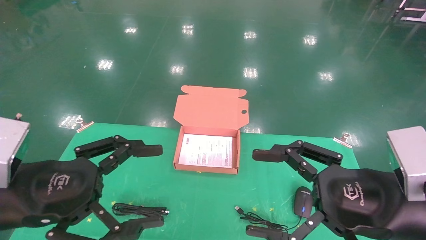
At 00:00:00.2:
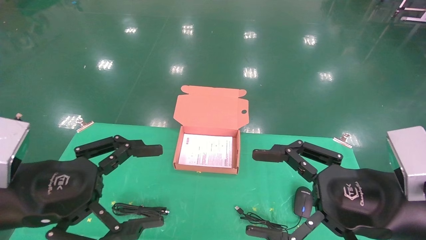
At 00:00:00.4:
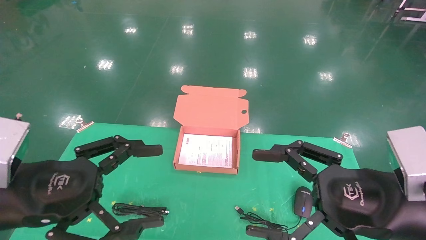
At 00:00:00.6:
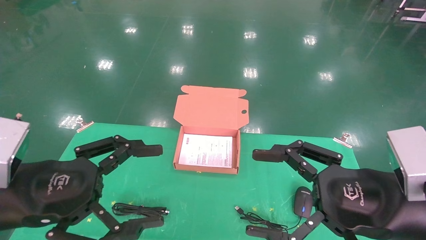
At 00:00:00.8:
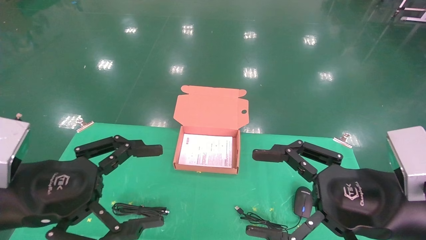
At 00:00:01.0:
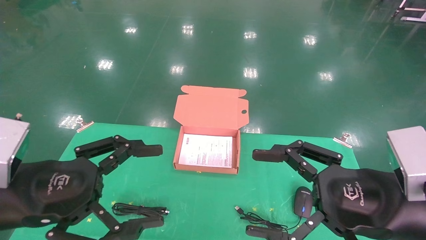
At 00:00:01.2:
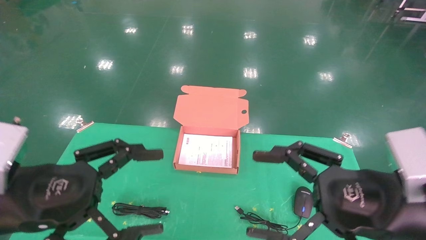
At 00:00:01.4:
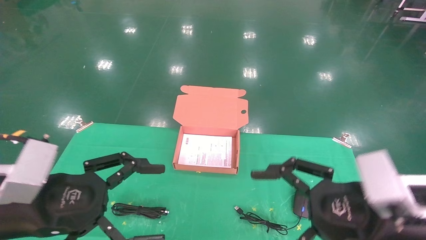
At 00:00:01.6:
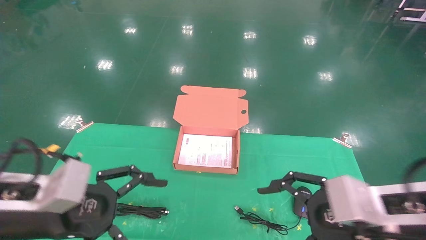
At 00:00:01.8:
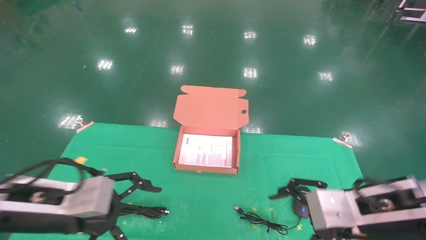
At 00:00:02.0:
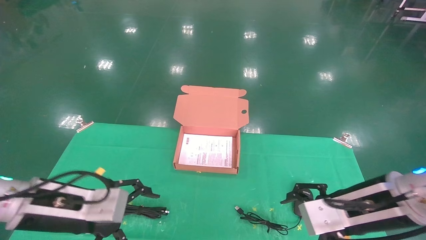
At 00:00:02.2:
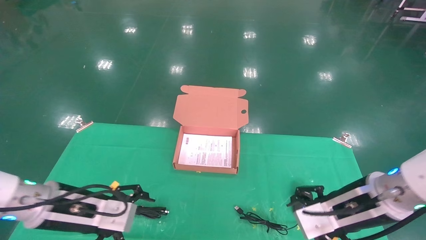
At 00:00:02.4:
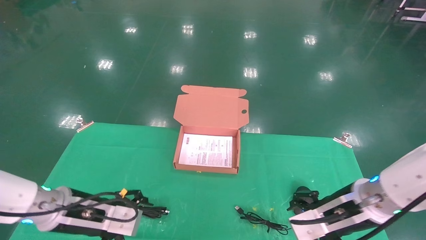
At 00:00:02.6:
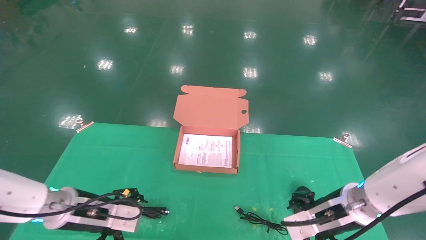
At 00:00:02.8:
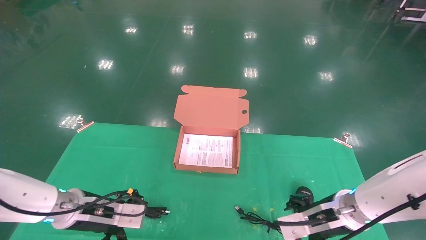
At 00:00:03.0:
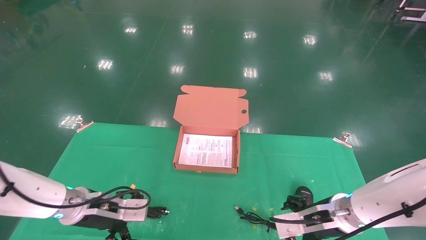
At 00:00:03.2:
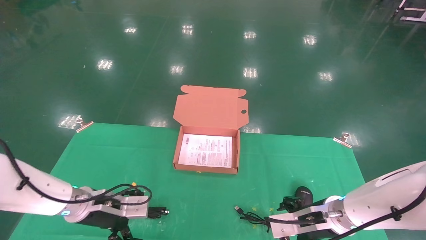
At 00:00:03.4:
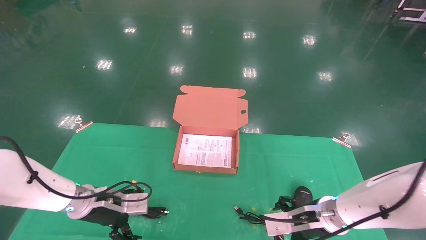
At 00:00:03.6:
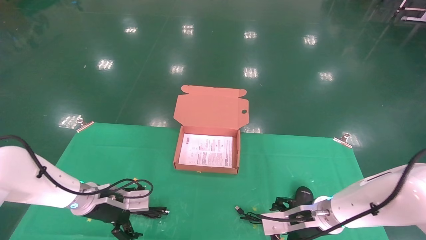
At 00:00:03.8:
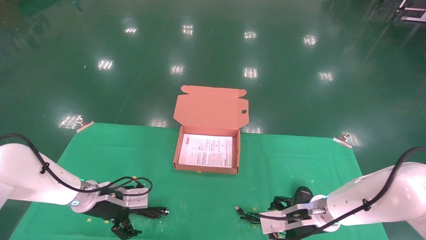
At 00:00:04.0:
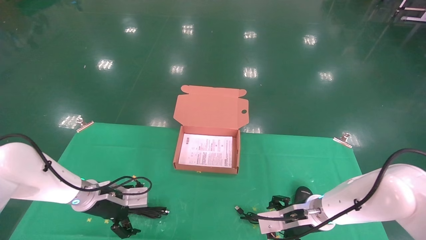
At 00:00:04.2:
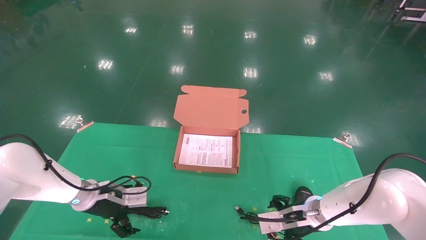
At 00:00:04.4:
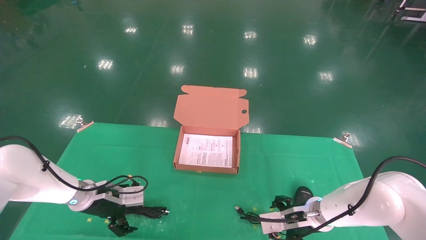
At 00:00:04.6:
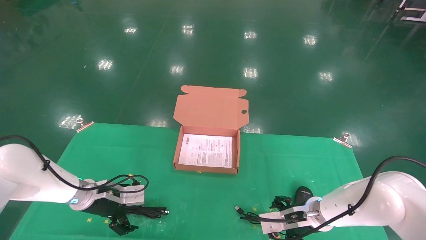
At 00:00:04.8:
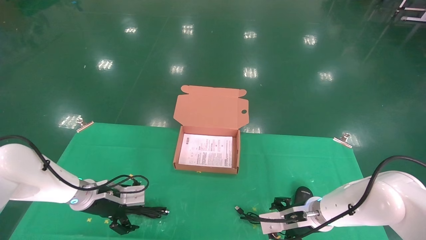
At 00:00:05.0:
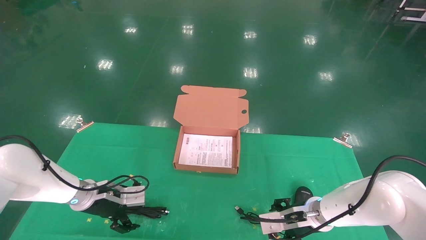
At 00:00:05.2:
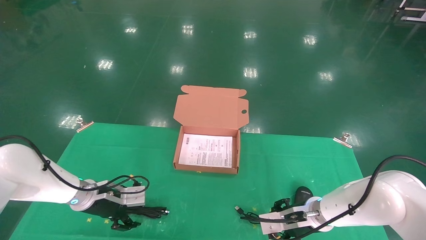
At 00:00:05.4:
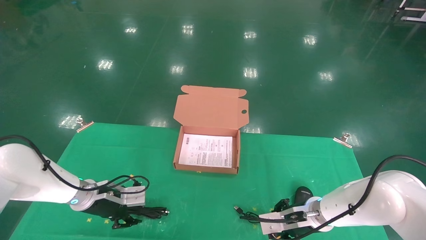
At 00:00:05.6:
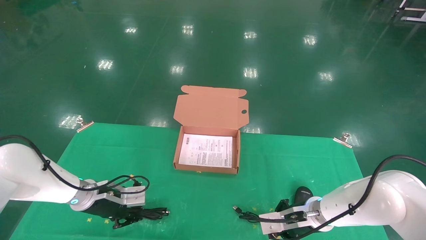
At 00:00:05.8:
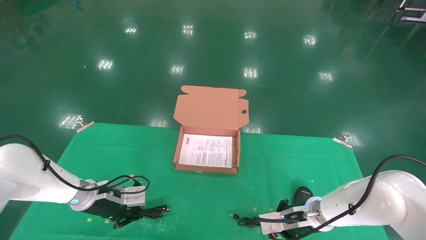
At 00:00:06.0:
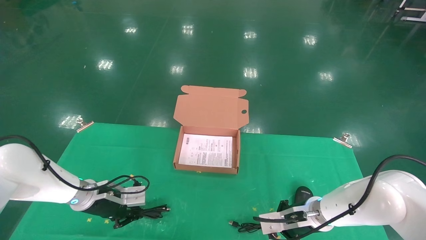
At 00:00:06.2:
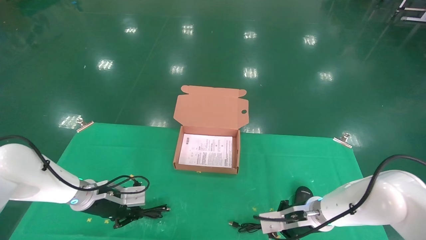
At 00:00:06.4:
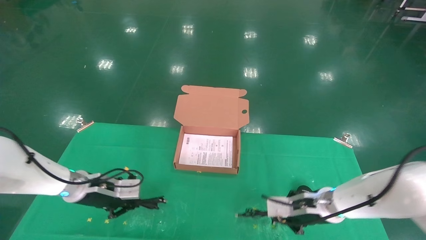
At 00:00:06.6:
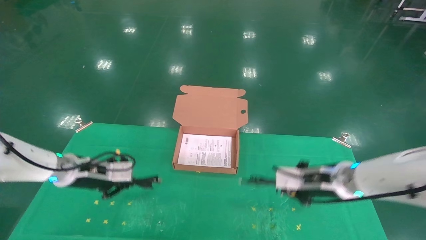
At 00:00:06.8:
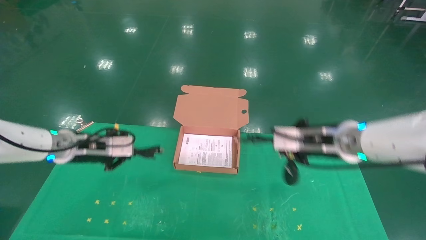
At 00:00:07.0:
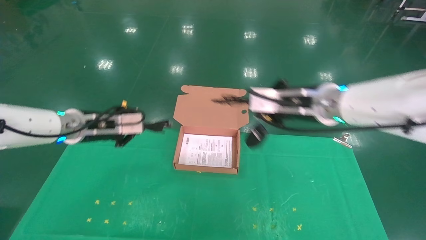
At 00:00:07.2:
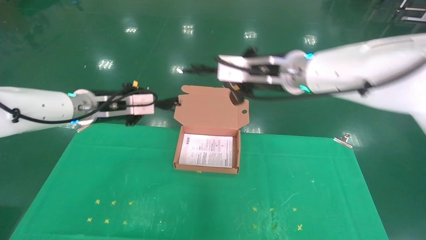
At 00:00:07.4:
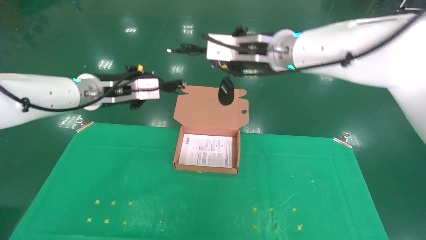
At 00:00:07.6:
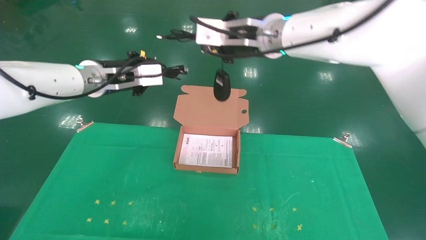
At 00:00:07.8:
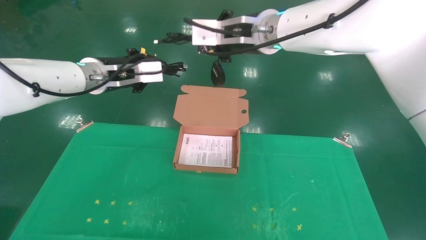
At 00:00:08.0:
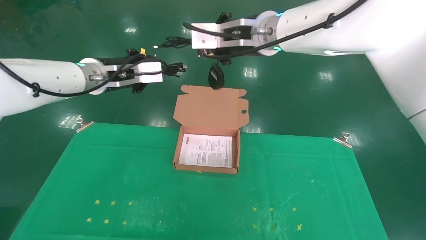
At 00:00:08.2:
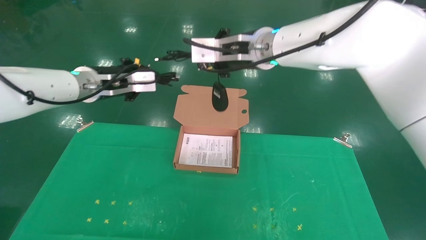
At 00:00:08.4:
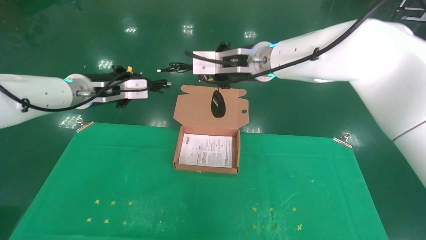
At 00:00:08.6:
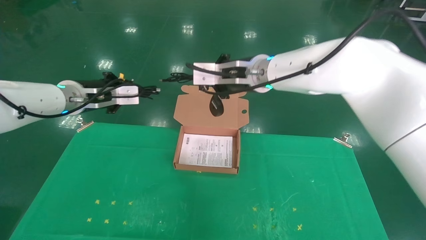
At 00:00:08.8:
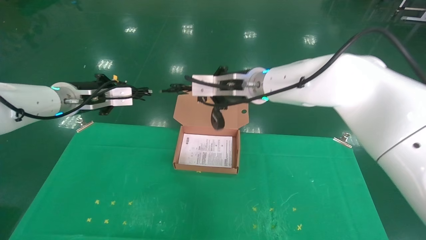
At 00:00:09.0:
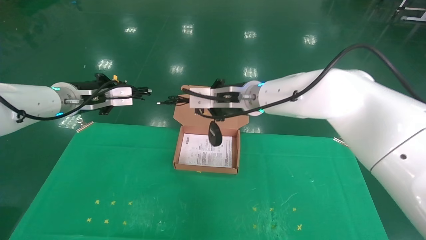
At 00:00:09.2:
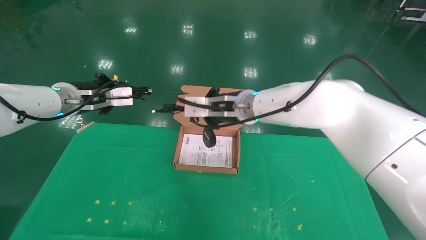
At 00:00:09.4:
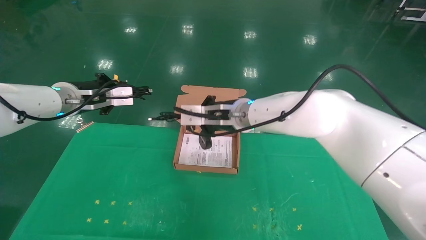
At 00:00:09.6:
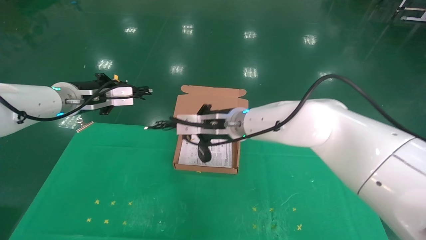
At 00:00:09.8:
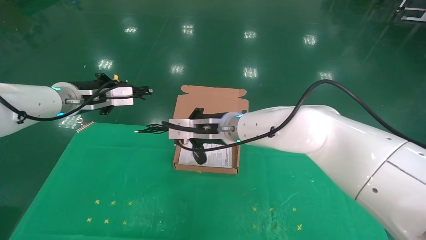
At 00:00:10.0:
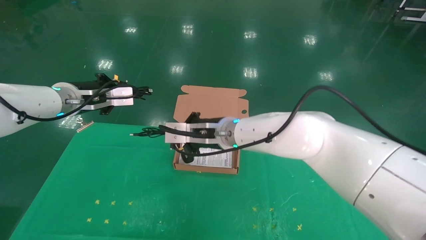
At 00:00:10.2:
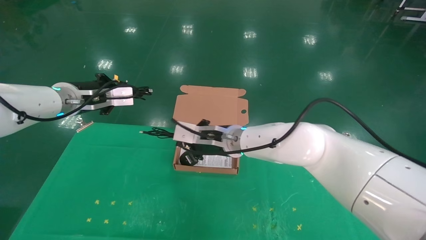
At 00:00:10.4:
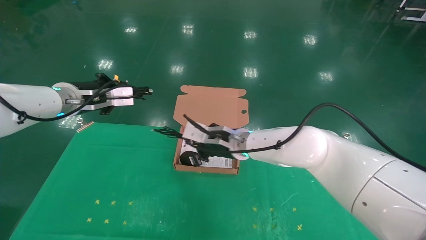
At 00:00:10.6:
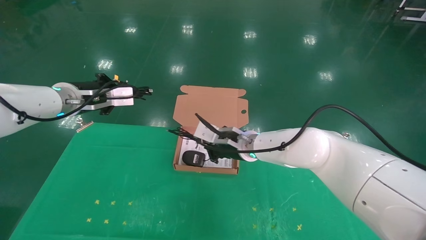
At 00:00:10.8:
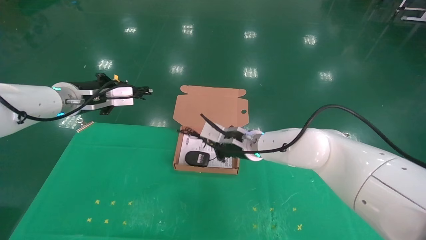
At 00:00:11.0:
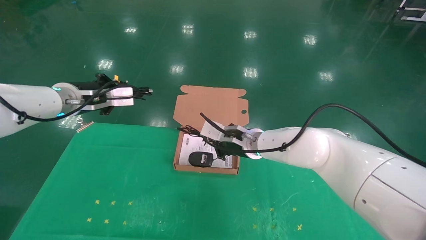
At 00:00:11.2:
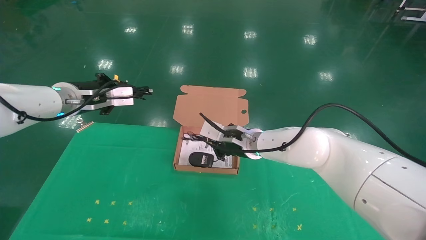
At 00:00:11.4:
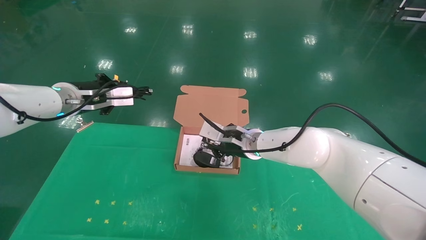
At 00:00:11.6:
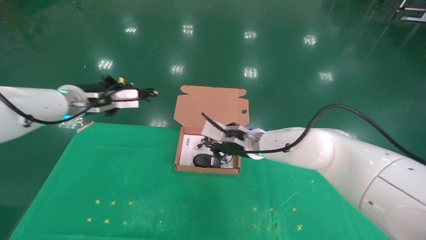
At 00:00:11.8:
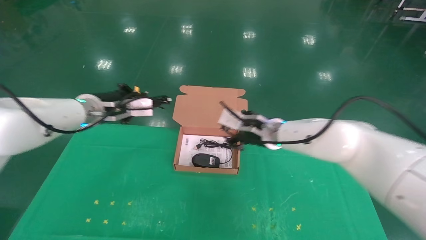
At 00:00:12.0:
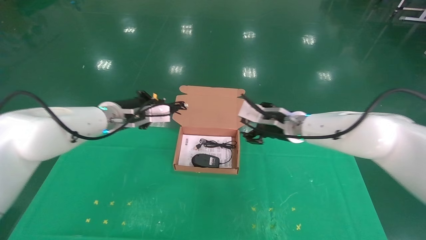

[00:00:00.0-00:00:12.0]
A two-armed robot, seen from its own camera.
Task of the whole recording: grasp data cable left put into box grasp mouse right put into box.
Step, 00:00:01.2 to 00:00:06.8: Grab and pick up both the mouse and power cord from the accessory packaging area at the same time.
00:00:01.6 to 00:00:03.0: Both grippers move forward and downward, roughly 20 cm.
00:00:03.0 to 00:00:04.4: The grippers both shift forward by about 5 cm.
00:00:04.4 to 00:00:06.0: The right gripper closes, while the left gripper closes its fingers.
00:00:06.0 to 00:00:07.6: Both grippers travel together upward, approximately 30 cm.
00:00:07.6 to 00:00:09.0: The right gripper moves downward, roughly 10 cm. The left gripper moves to the left, some 5 cm.
00:00:09.0 to 00:00:10.4: The right gripper heads downward, covering approximately 10 cm.
00:00:10.4 to 00:00:12.0: The left gripper is displaced to the right and downward by roughly 10 cm. The right gripper travels to the right by approximately 15 cm, and opens.

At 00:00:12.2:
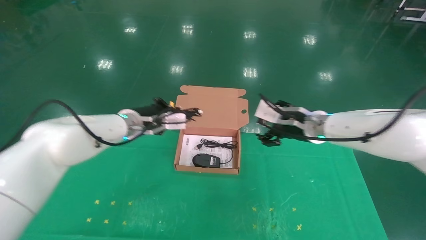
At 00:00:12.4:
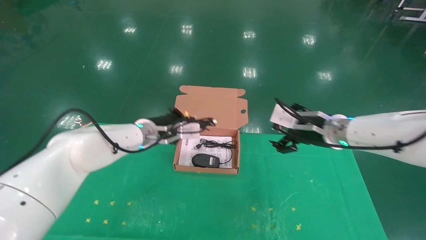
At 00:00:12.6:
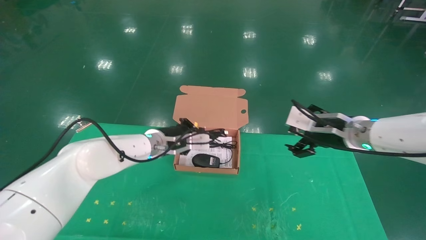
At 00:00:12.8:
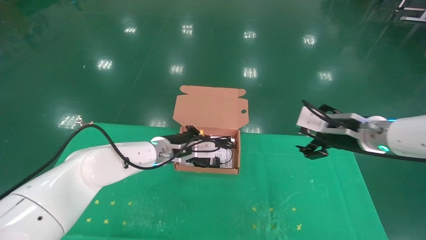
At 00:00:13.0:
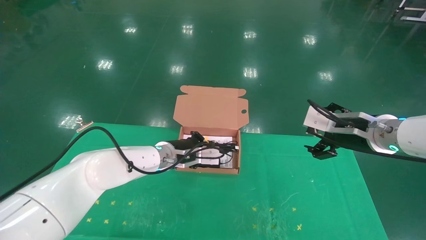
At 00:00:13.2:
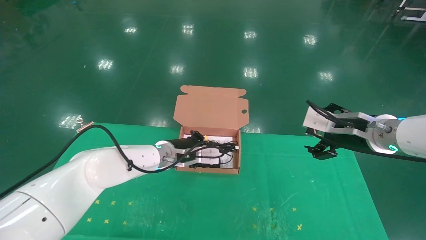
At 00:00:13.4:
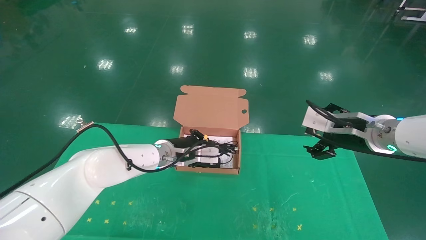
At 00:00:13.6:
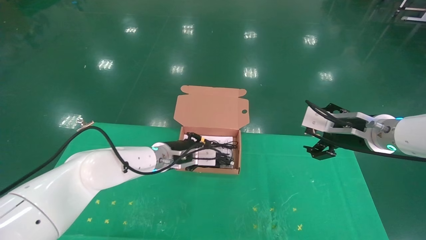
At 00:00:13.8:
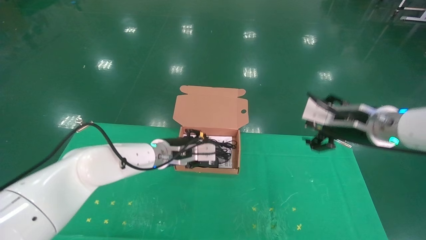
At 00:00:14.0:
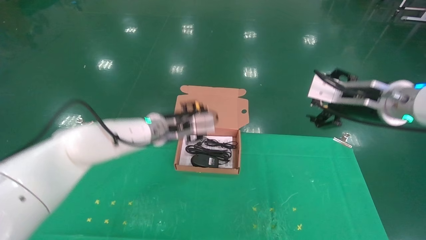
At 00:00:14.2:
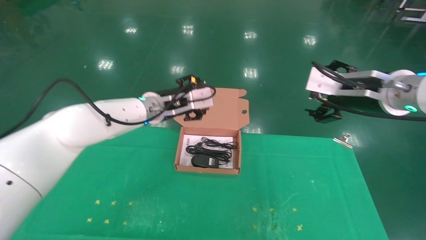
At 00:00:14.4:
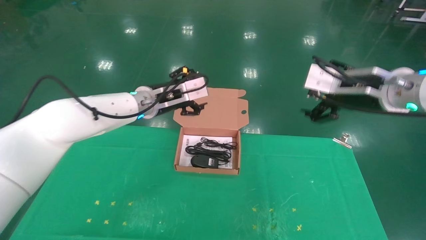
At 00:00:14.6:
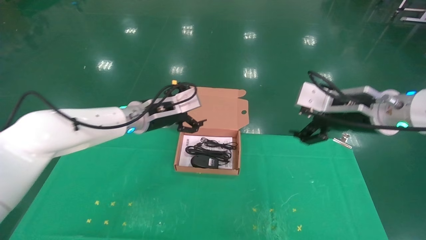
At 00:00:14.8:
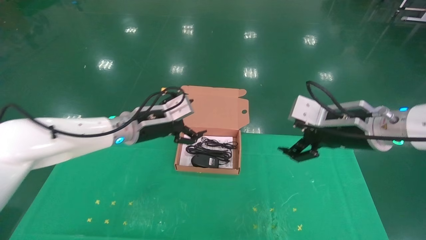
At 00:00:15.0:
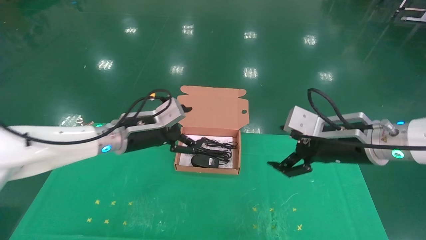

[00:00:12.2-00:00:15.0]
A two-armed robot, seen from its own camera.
Task of the whole recording: grasp data cable left put into box grasp mouse right put into box.
00:00:12.2 to 00:00:13.6: The right gripper travels backward and to the right by approximately 10 cm, while the left gripper is displaced downward and to the right by some 10 cm.
00:00:13.6 to 00:00:15.0: The right gripper moves roughly 5 cm. Meanwhile the left gripper is displaced to the left, upward and backward by about 10 cm, and opens its fingers.
